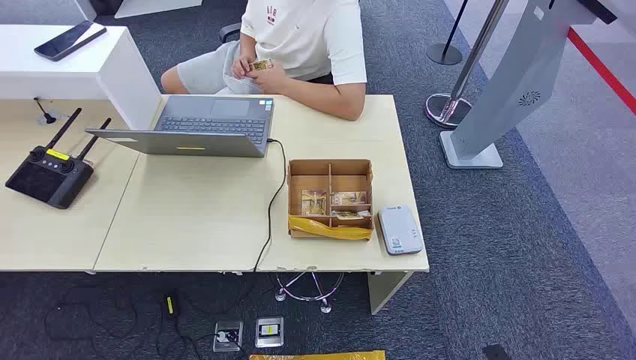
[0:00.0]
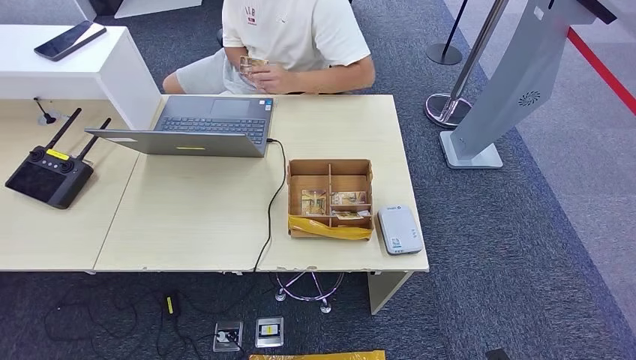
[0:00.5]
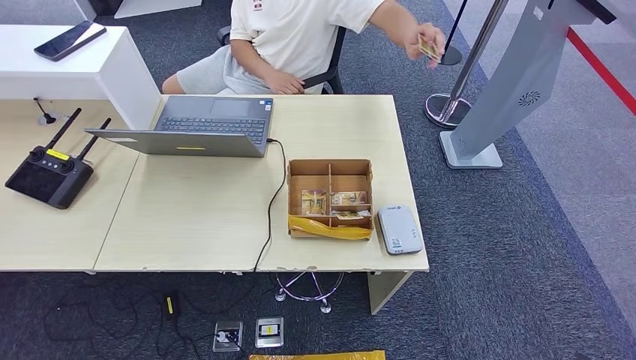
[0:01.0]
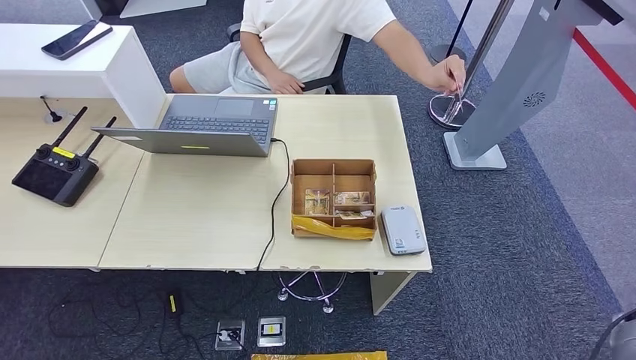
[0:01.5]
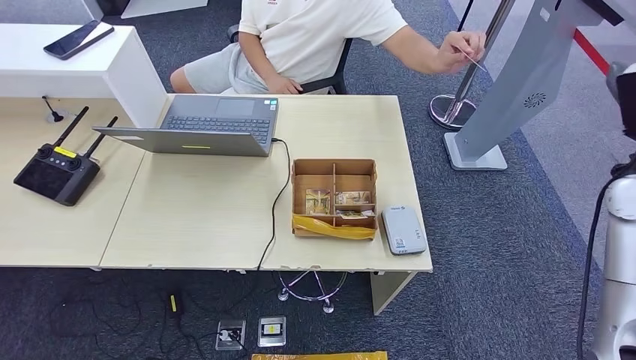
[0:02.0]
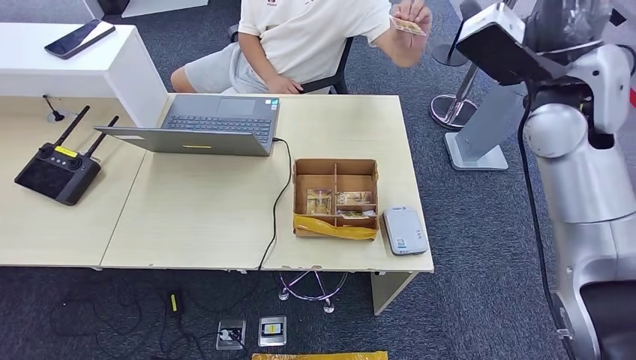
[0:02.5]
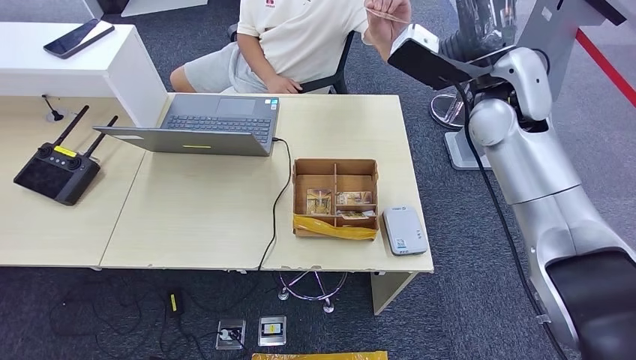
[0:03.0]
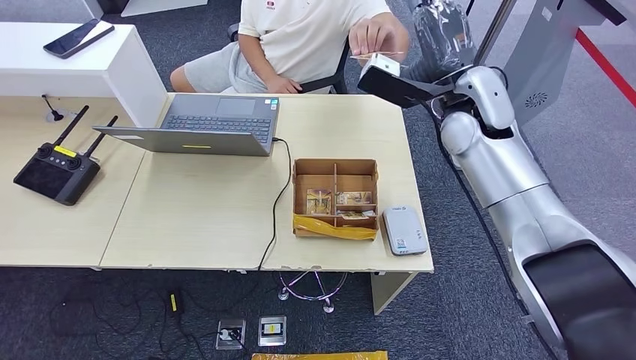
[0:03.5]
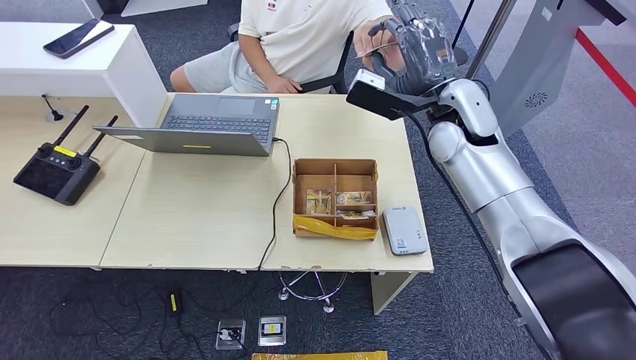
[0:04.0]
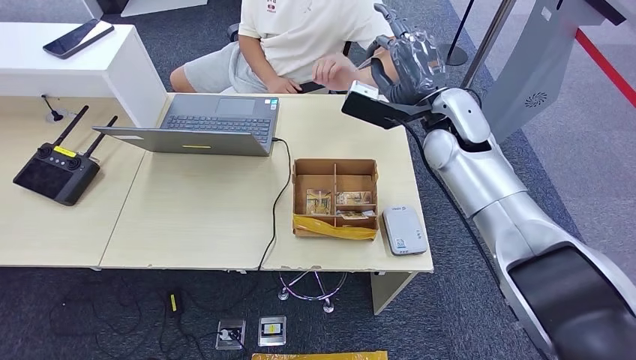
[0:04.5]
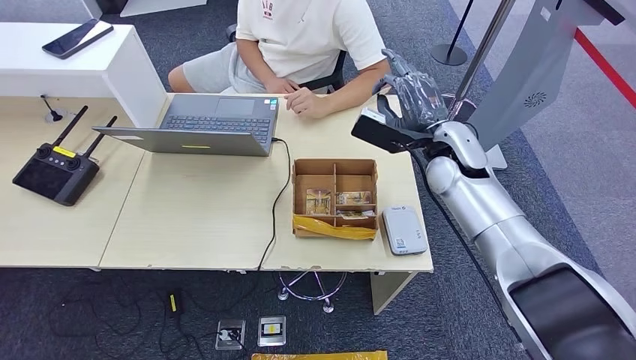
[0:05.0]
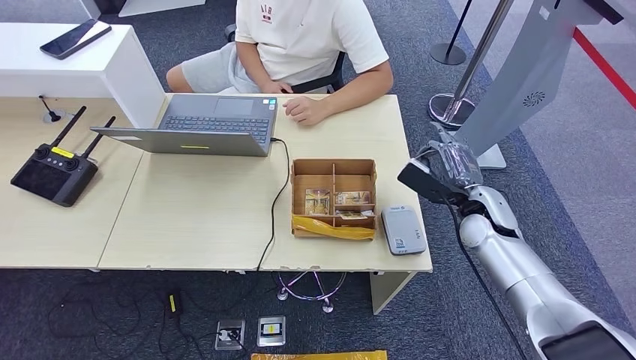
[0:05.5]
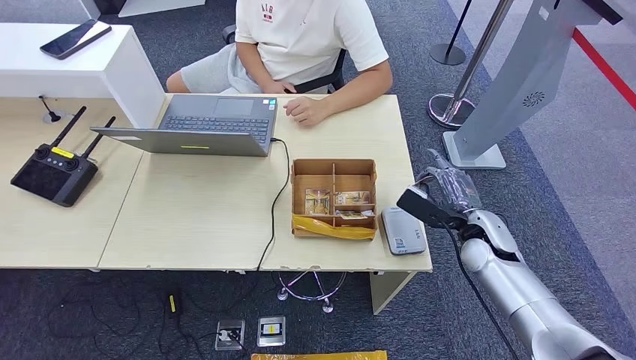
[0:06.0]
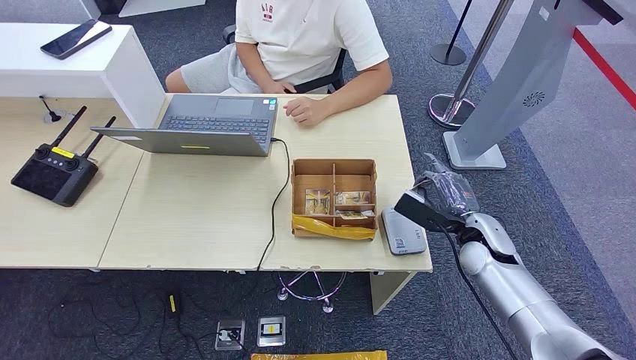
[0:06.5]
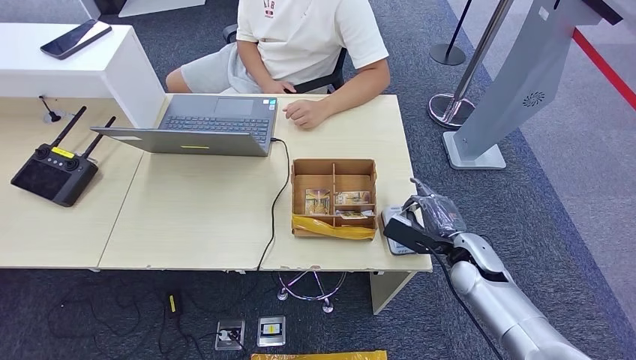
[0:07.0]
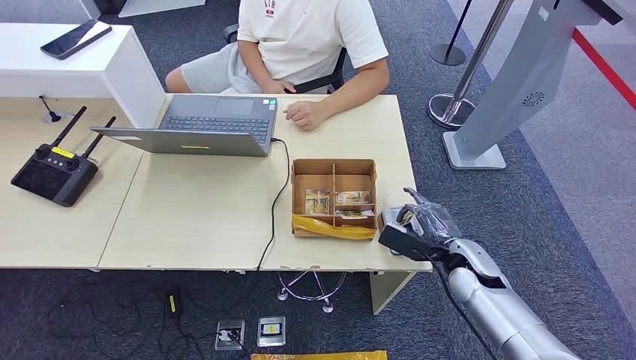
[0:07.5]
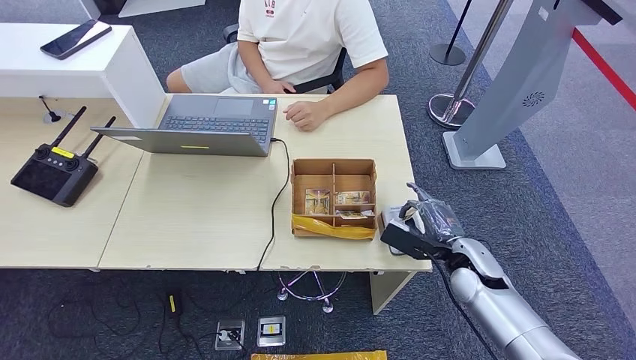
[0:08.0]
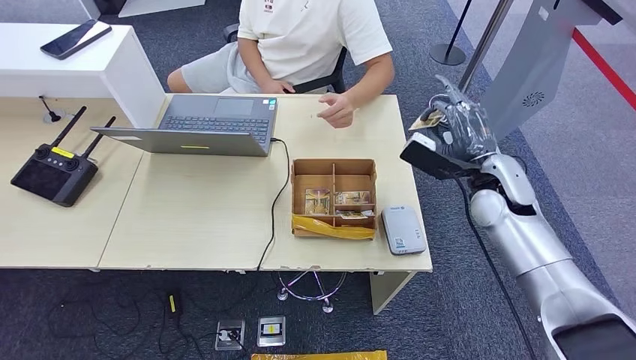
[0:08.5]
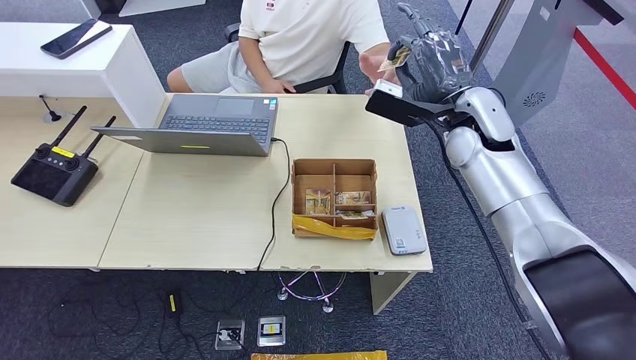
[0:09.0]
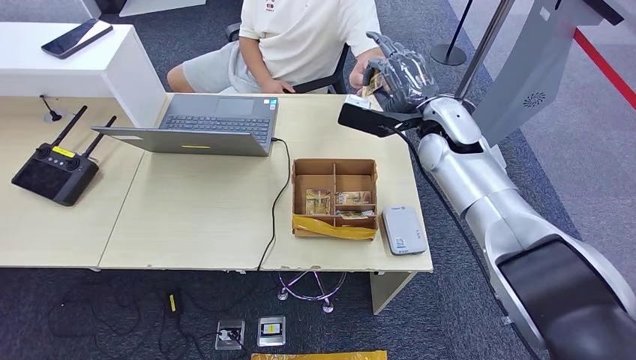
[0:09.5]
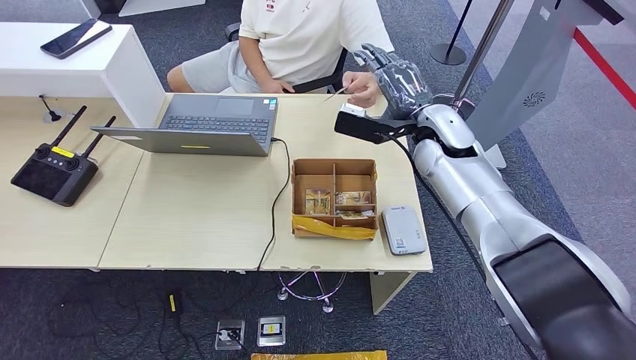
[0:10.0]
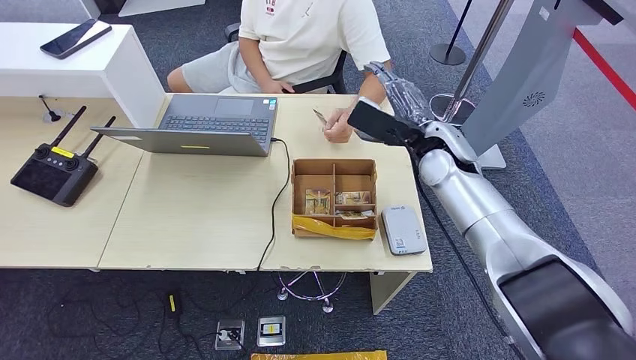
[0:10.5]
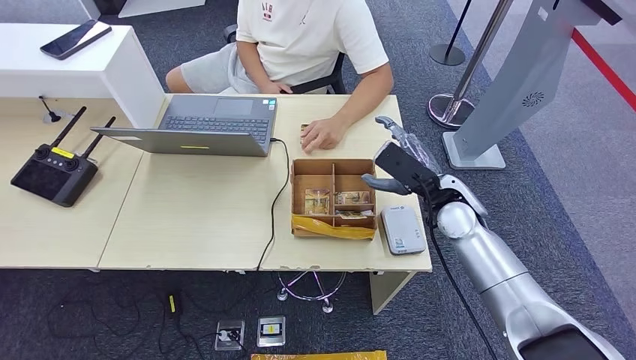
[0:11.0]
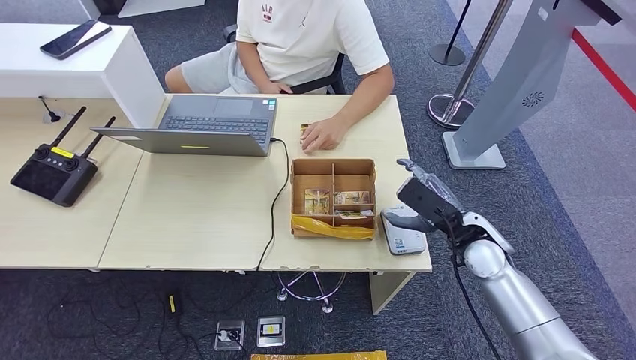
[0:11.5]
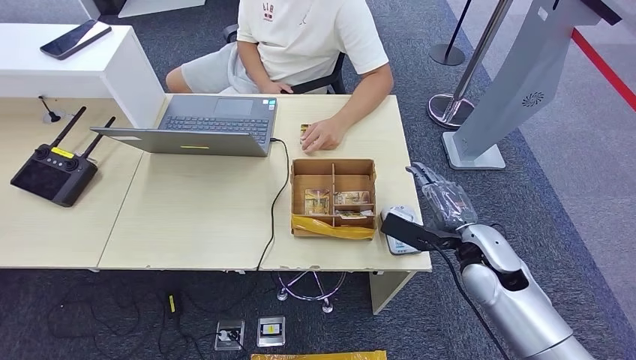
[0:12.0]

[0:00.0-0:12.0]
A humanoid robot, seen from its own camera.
Step, 0:00.0 to 0:05.0: Take the ID card from the person's hand.
Step, 0:05.5 to 0:07.5: Place the ID card on the card reader.
Step, 0:08.0 to 0:09.5: Hand the ID card to the person.
0:02.0 to 0:04.0: The right hand heads to the left and forward, covering roughly 25 cm.
0:06.0 to 0:08.0: The right hand changes place by about 5 cm.
0:08.0 to 0:10.0: The right hand shifts approximately 25 cm upward, forward and to the left.
0:10.0 to 0:12.0: The right hand travels backward, downward and to the right by approximately 20 cm.

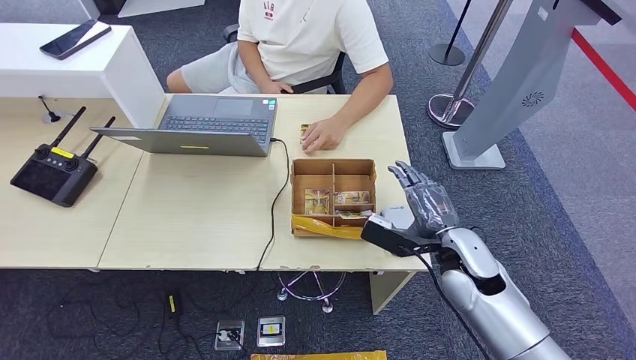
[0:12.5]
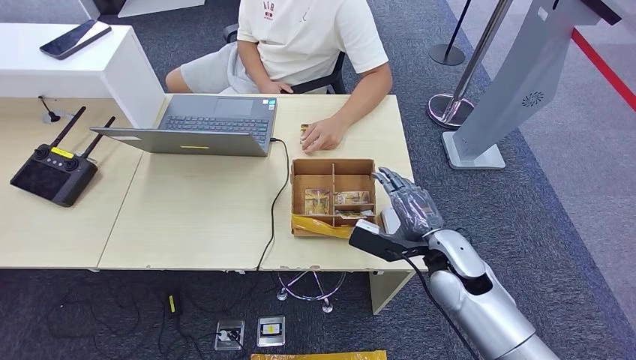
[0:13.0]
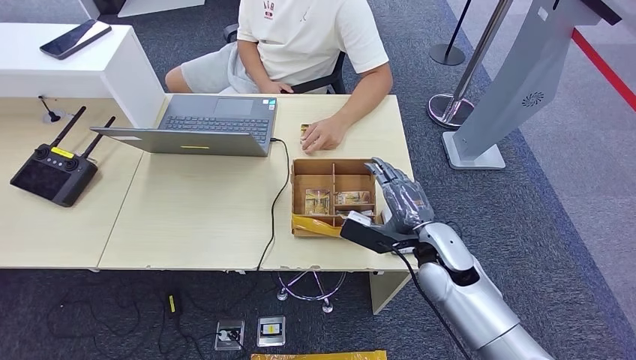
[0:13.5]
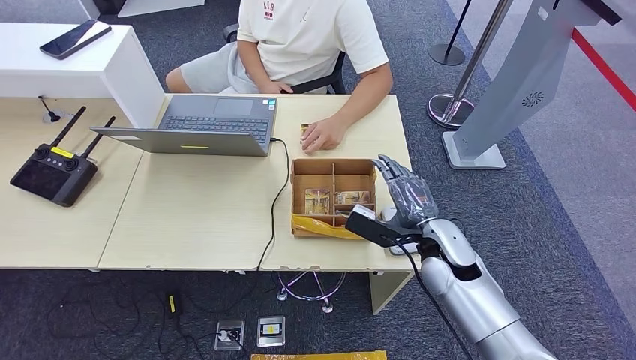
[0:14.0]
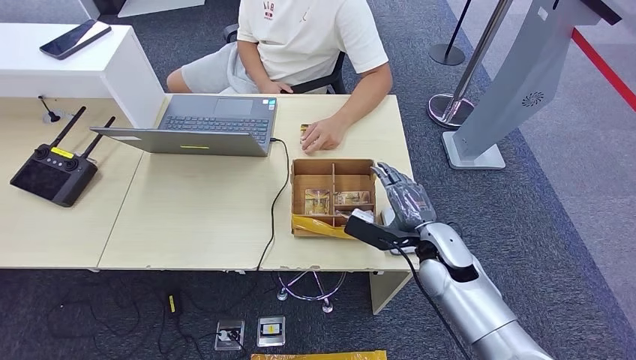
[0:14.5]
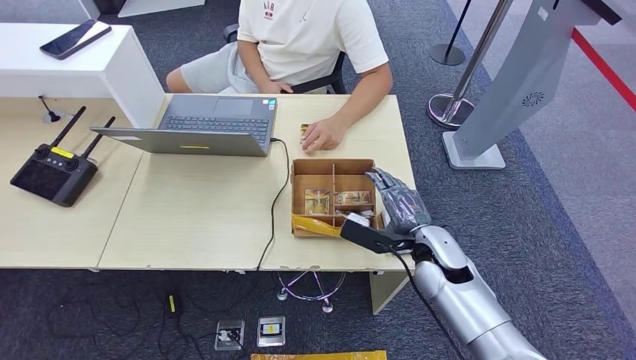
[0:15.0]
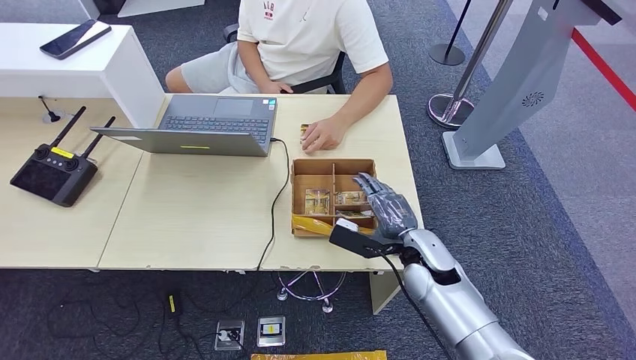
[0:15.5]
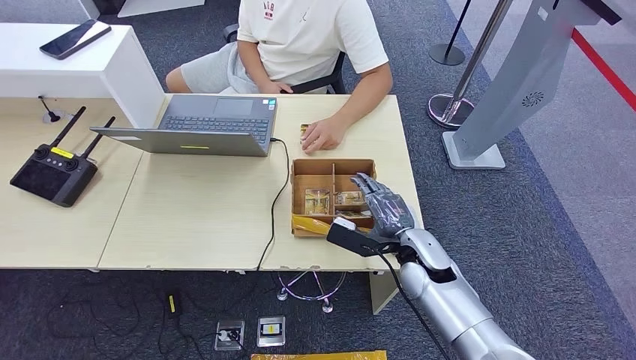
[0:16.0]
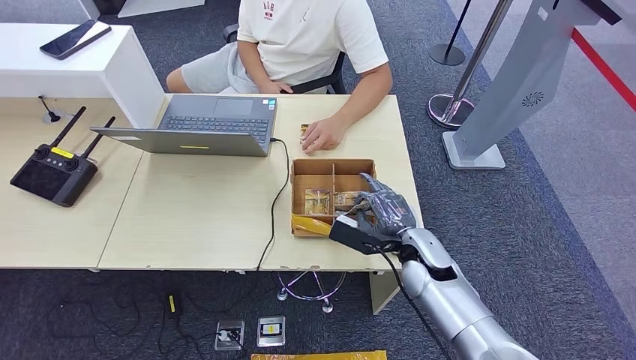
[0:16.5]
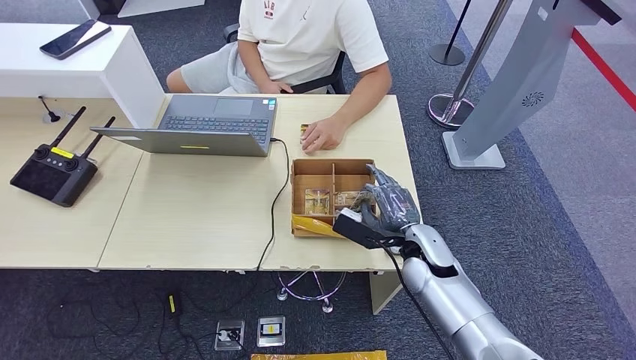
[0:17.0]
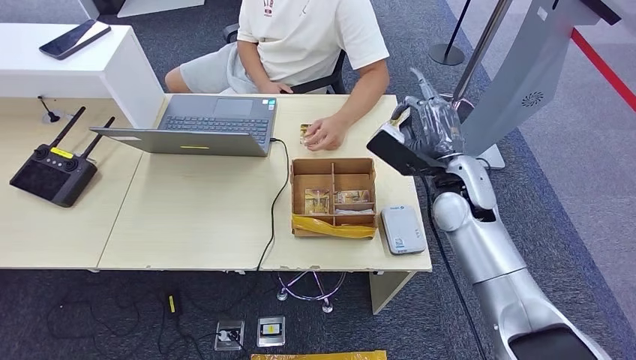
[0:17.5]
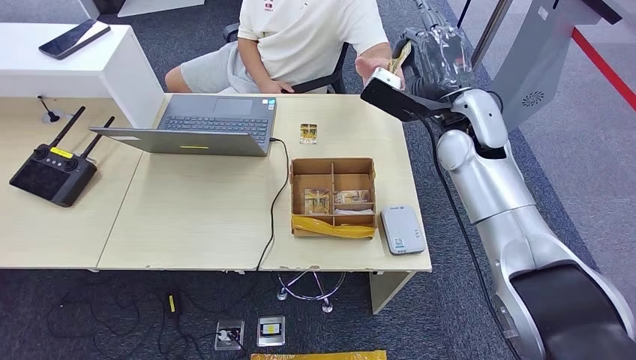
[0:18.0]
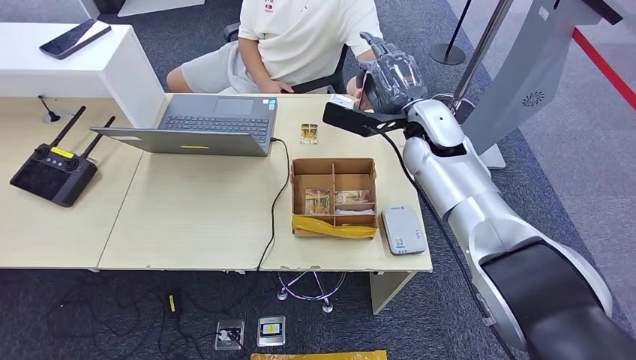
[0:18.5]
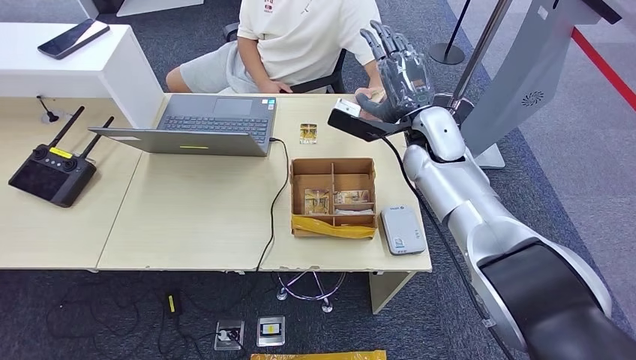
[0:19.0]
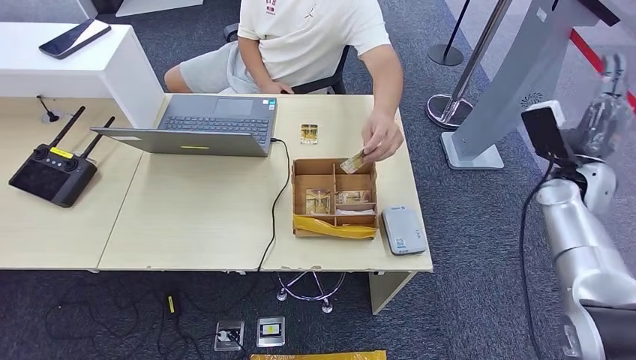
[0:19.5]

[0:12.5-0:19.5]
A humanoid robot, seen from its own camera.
Step, 0:12.5 to 0:17.5: Pick up the room key from the key card box.
Step, 0:18.5 to 0:19.5: Hand the room key to the person.
0:12.5 to 0:14.5: There are only small adjustments of the hands.
0:14.5 to 0:16.0: There are only small adjustments of the hands.
0:16.0 to 0:17.5: The right hand travels upward and forward by about 15 cm.
0:17.5 to 0:19.5: The right hand goes some 20 cm to the right.
